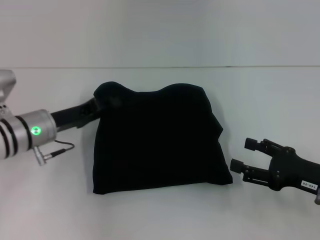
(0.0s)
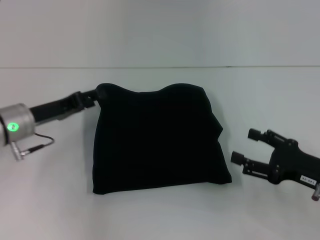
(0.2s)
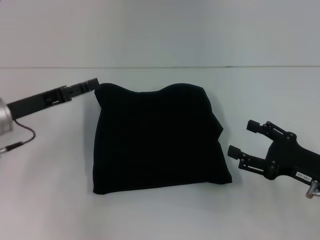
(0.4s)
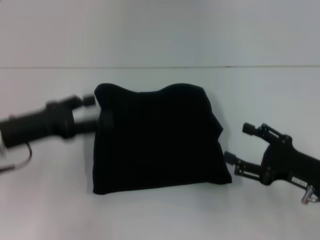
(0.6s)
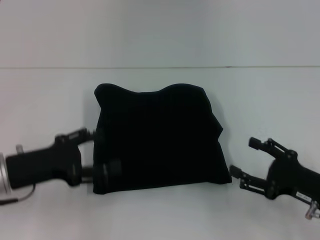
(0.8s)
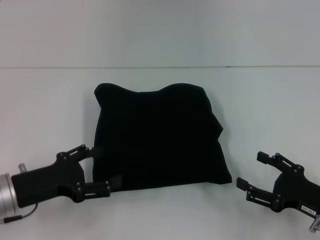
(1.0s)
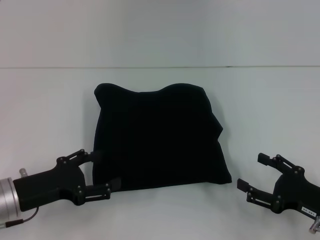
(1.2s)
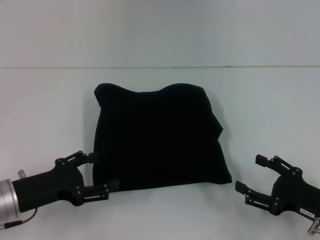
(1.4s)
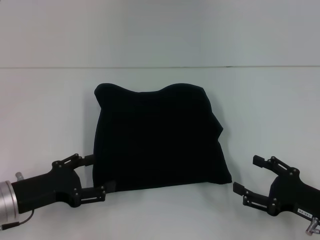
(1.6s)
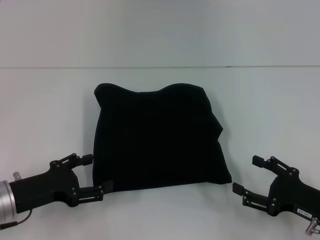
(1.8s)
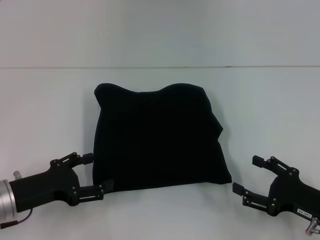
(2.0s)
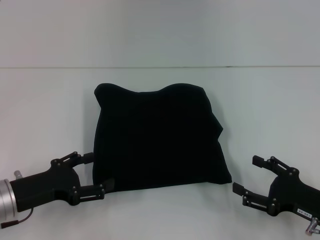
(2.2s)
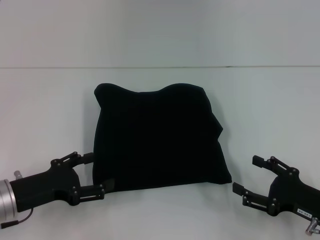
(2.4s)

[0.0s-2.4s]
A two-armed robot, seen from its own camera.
0.0s to 1.2s: The left gripper heads backward, covering roughly 10 cm, and opens up. The right gripper moves approximately 5 cm.
1.2s to 2.4s: Neither gripper changes place.

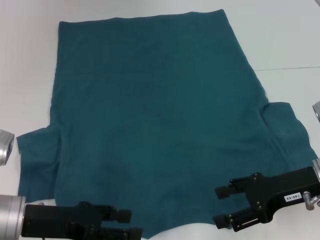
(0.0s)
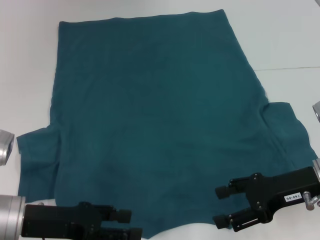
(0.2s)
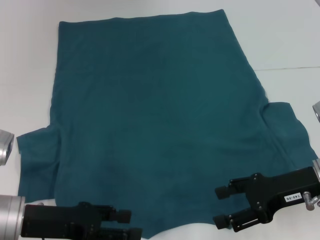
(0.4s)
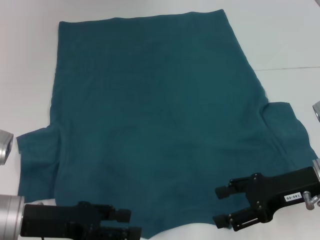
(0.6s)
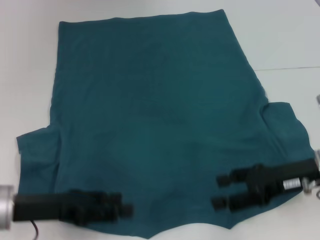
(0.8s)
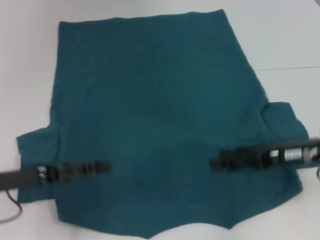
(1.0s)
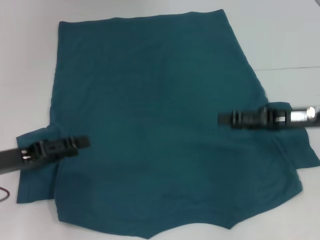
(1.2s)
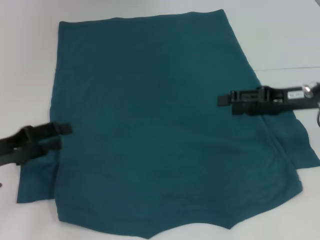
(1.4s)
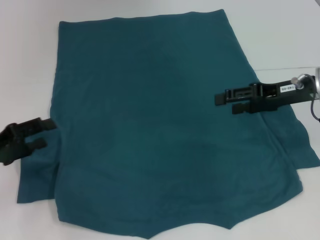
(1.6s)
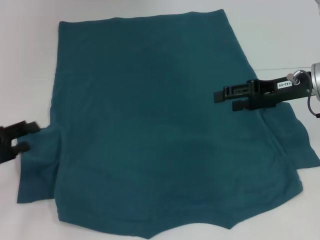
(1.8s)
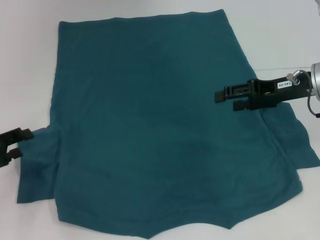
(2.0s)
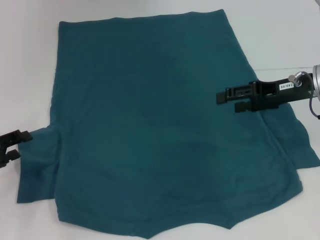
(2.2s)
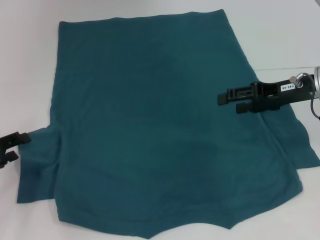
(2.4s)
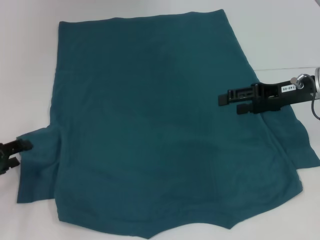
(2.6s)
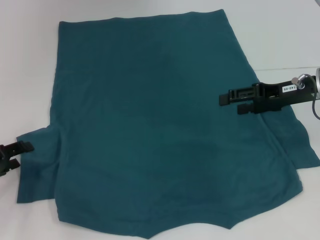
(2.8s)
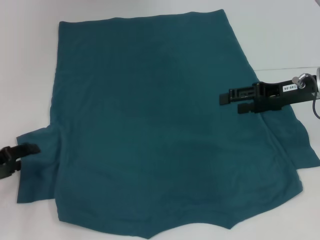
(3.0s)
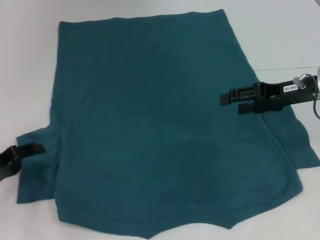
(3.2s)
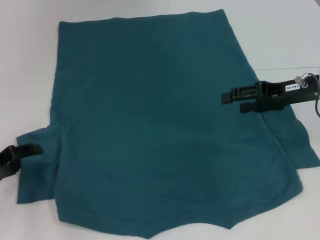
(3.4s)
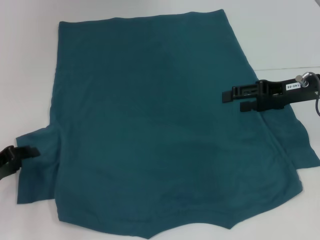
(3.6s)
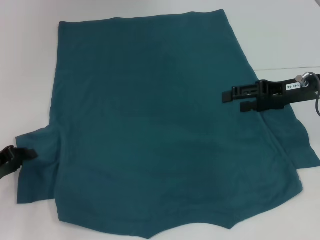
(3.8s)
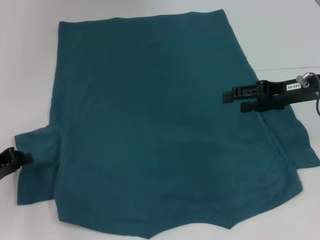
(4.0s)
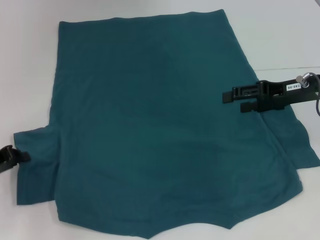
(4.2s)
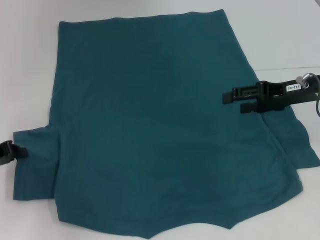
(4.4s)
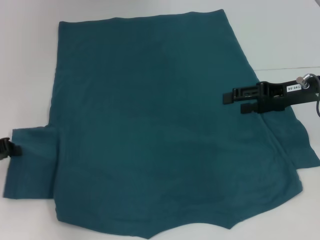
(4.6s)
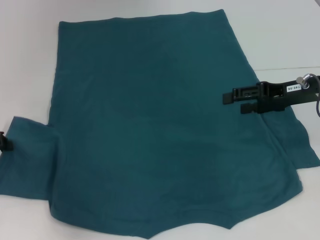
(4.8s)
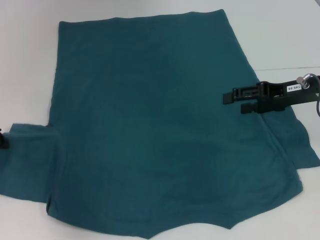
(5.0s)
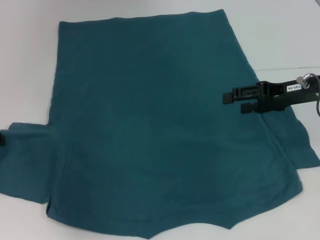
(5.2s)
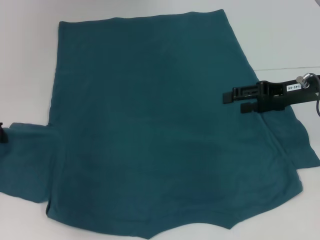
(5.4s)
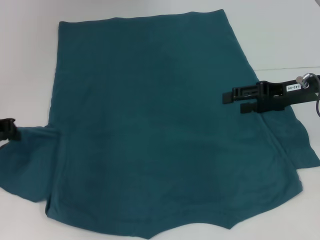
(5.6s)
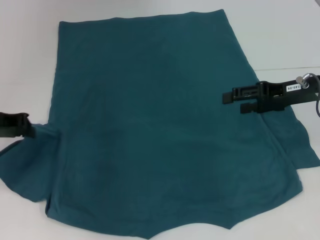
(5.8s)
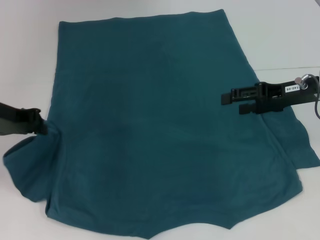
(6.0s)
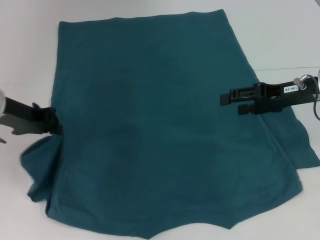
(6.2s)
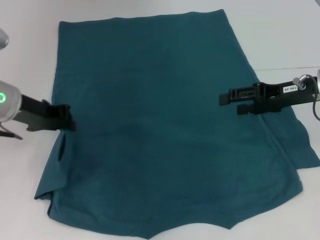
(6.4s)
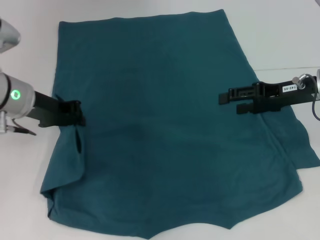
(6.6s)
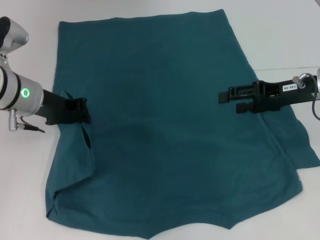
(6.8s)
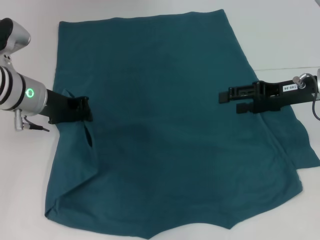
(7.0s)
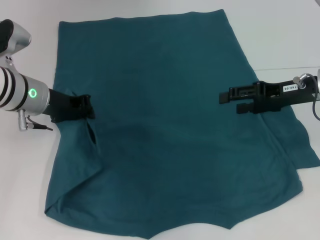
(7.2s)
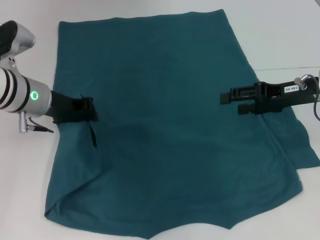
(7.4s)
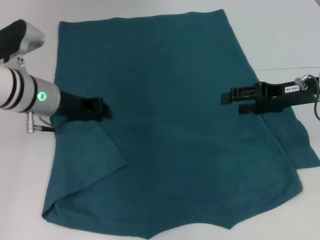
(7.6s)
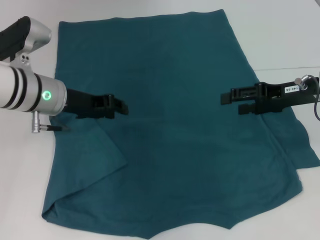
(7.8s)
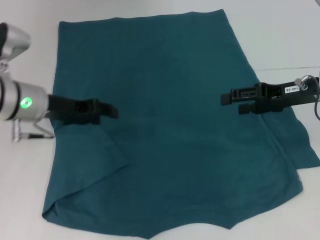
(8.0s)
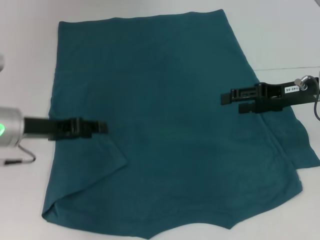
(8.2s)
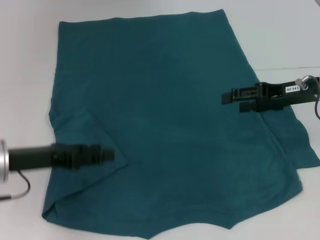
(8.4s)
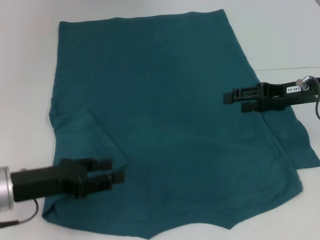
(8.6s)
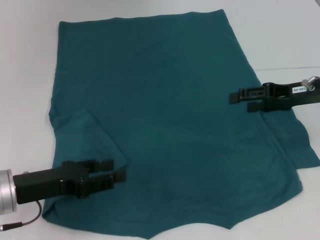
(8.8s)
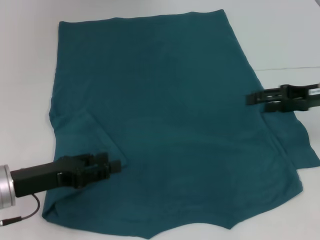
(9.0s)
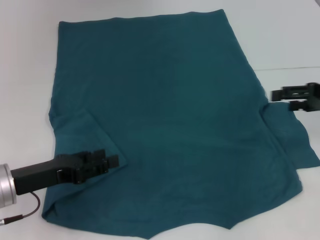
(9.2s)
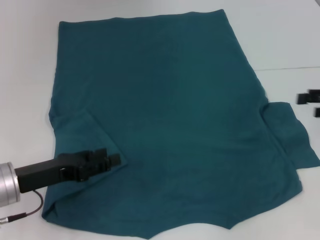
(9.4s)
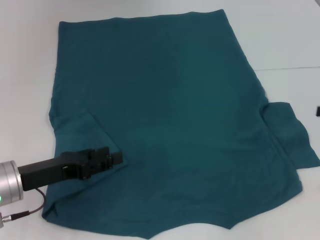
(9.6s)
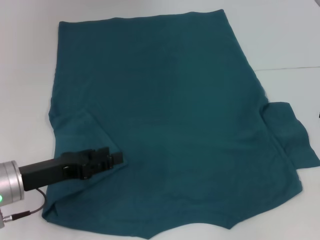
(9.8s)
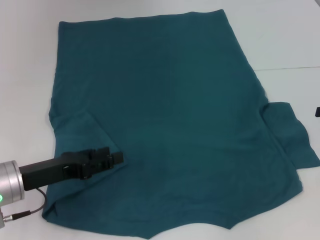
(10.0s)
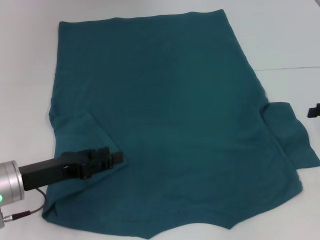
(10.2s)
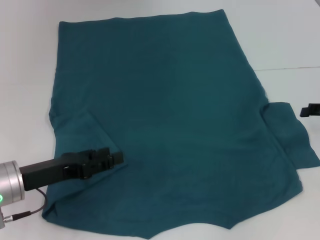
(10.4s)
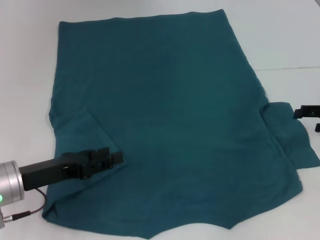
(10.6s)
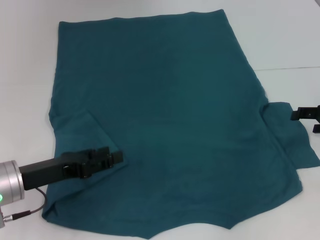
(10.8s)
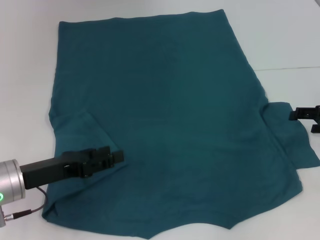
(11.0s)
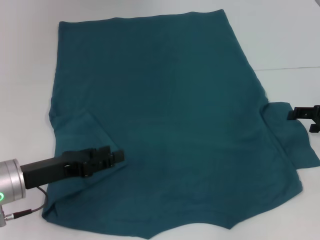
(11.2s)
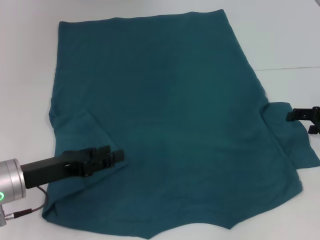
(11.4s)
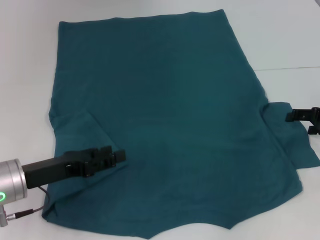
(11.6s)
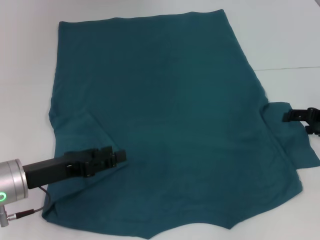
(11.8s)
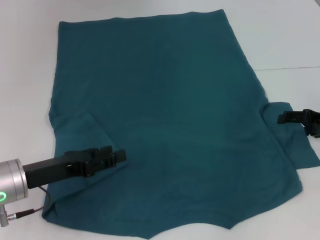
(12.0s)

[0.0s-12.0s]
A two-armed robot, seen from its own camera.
Step, 0.0s to 7.6s: Fold the bottom left sleeve with your left hand.
0.0s to 1.6s: The right gripper travels forward and upward by roughly 10 cm; the left gripper goes roughly 10 cm to the left.
1.6s to 3.0s: The grippers make only small movements.
3.0s to 4.4s: The left gripper closes its fingers.
4.4s to 6.0s: The left gripper heads upward, to the right and forward, covering roughly 10 cm.
6.0s to 7.6s: The left gripper heads to the right, covering about 10 cm.
7.6s to 9.0s: The left gripper moves backward, to the left and downward, some 15 cm, and opens.
9.0s to 10.4s: The right gripper heads to the right, covering some 5 cm.
10.4s to 12.0s: The grippers make only small movements.

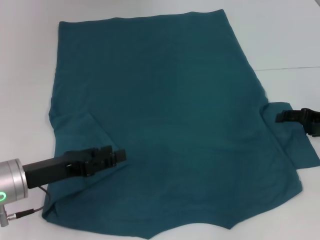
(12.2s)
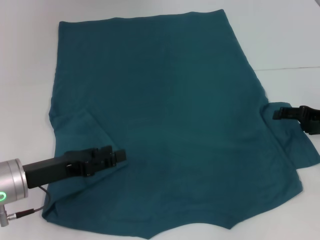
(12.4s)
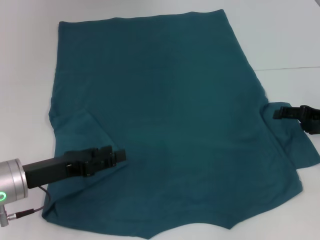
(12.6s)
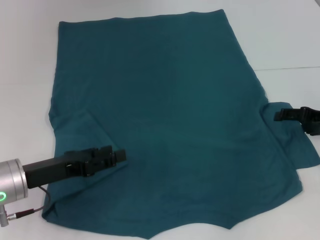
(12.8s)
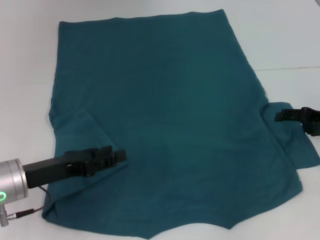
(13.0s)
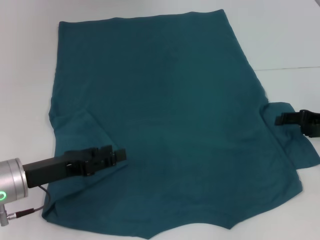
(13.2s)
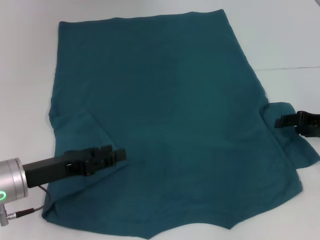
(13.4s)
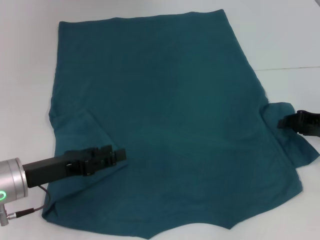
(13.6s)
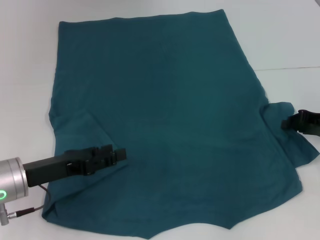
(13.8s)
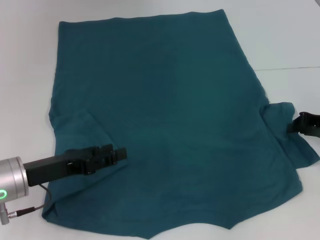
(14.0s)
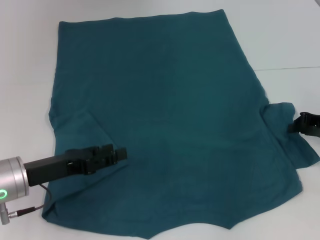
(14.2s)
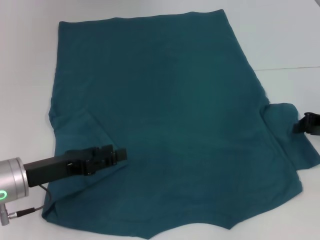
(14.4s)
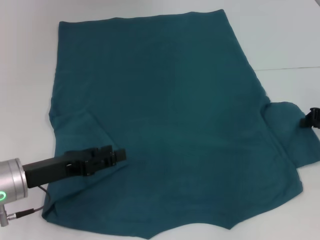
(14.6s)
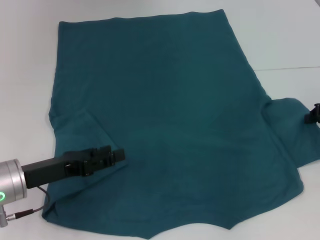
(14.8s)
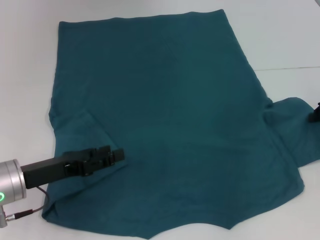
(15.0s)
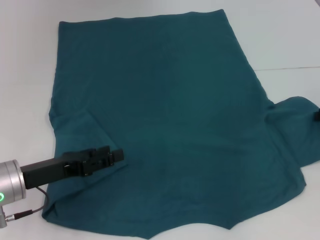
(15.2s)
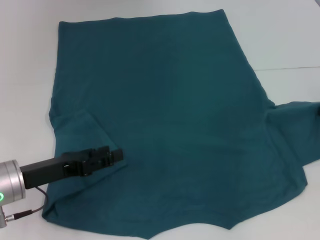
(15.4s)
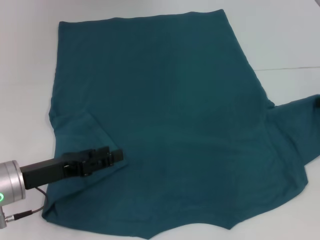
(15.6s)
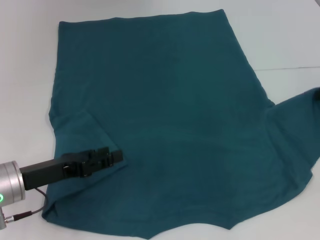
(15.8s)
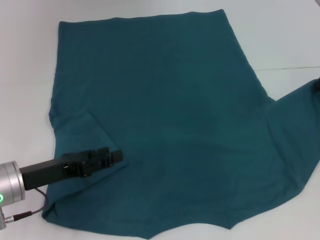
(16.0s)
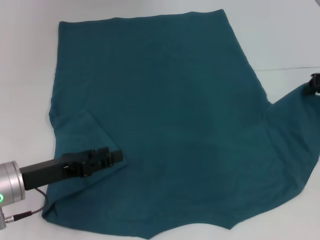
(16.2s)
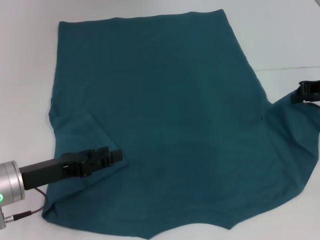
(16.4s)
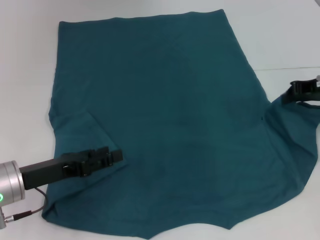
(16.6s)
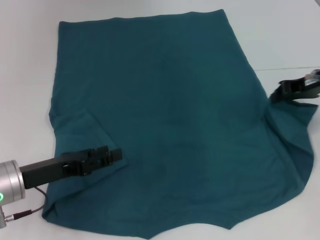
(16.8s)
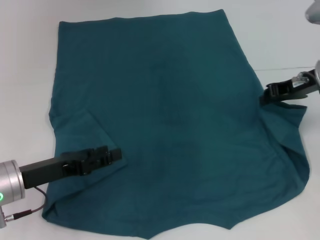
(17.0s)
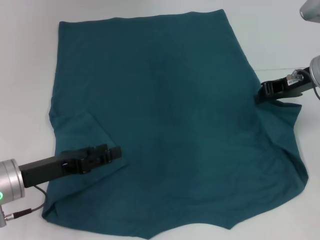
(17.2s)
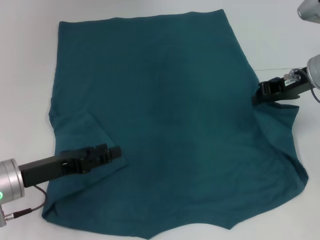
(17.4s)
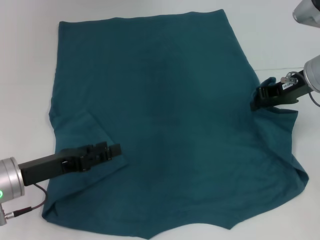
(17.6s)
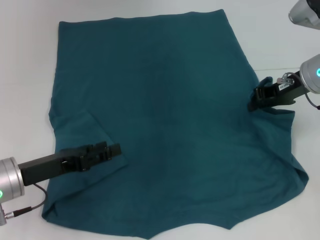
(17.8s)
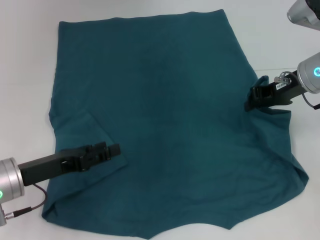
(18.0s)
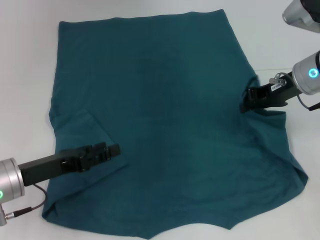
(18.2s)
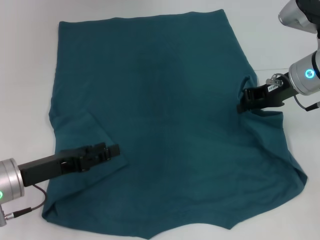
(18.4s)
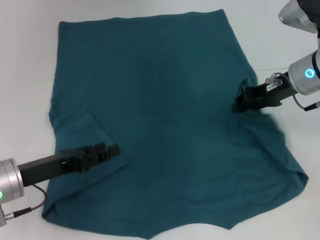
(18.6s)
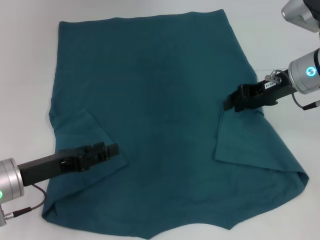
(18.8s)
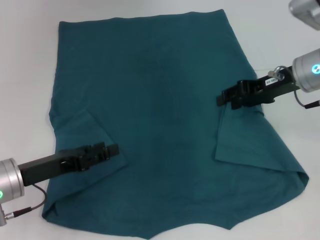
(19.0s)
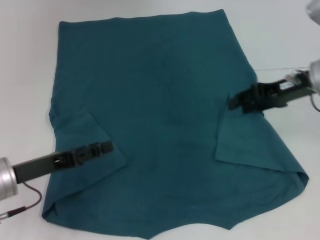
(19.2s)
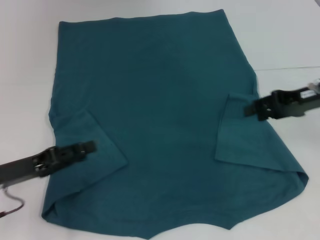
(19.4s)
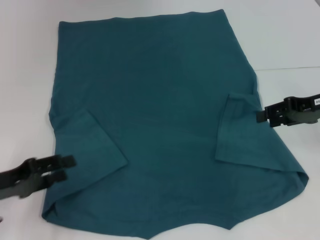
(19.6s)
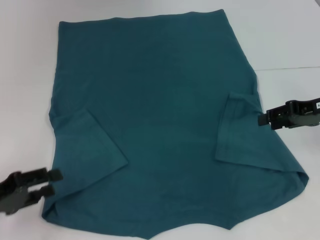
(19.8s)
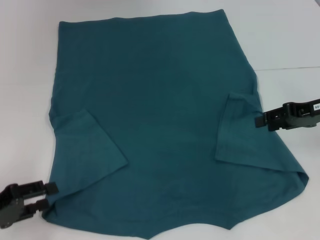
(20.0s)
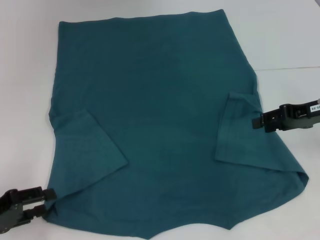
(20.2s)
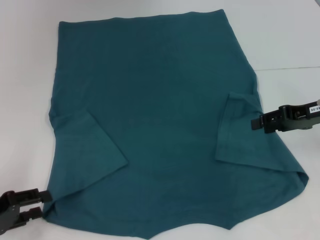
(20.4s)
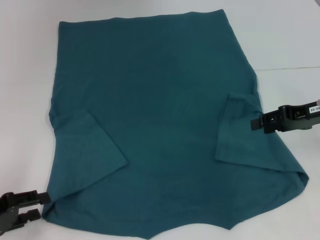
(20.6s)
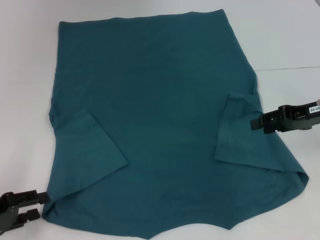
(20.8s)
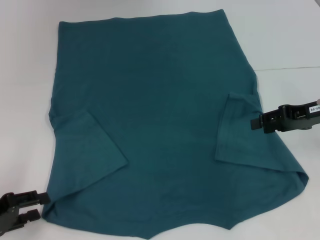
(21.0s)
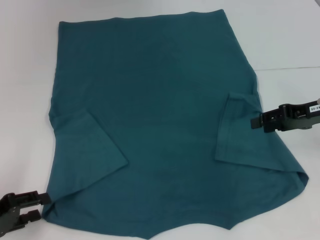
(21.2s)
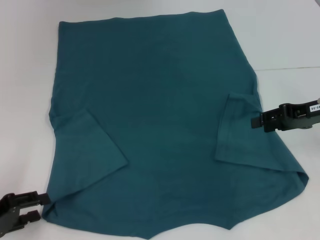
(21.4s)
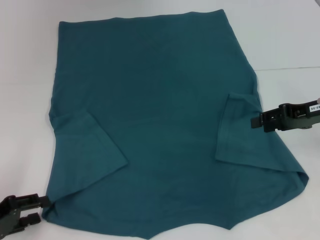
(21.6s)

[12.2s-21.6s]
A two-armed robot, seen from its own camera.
Step, 12.2s to 19.0s: Fold the bottom right sleeve to the right.
12.2s to 13.8s: The right gripper closes up.
13.8s to 15.4s: The right gripper changes place by approximately 5 cm, and closes up.
15.4s to 17.0s: The right gripper heads to the left, covering about 10 cm.
17.0s to 18.4s: The grippers move only a little.
18.4s to 20.0s: The right gripper moves to the right and backward, roughly 10 cm, and opens its fingers, while the left gripper goes roughly 10 cm to the left and backward.
20.0s to 21.6s: The grippers stay close to where they were, moving slightly.
